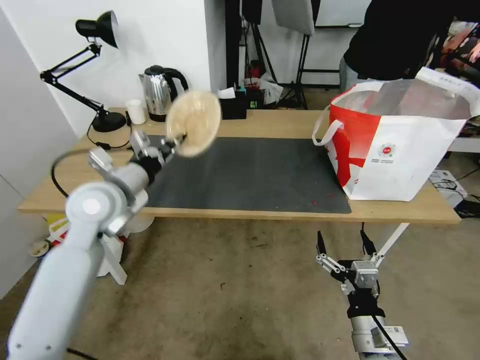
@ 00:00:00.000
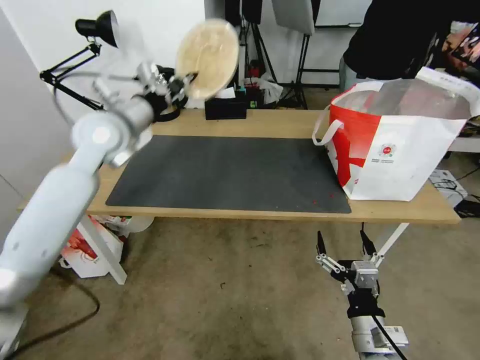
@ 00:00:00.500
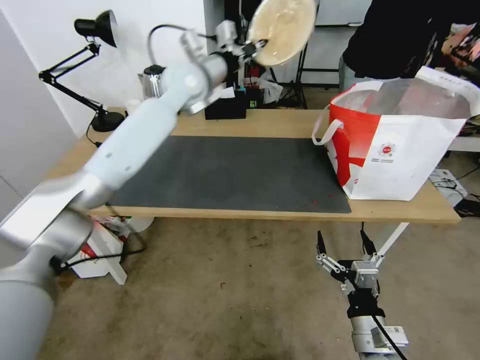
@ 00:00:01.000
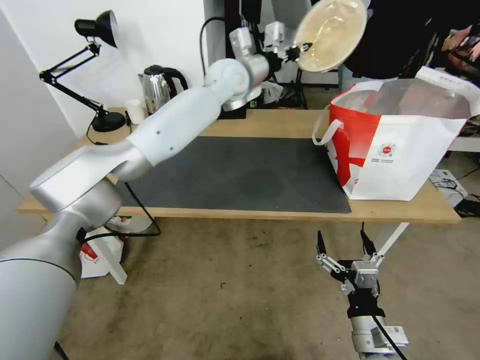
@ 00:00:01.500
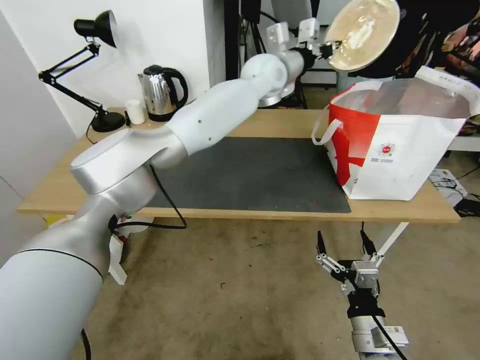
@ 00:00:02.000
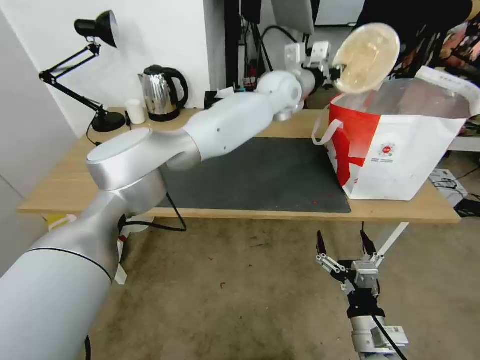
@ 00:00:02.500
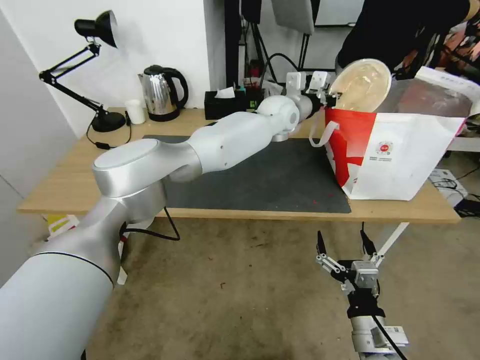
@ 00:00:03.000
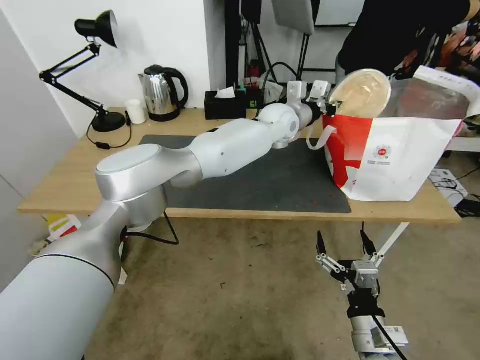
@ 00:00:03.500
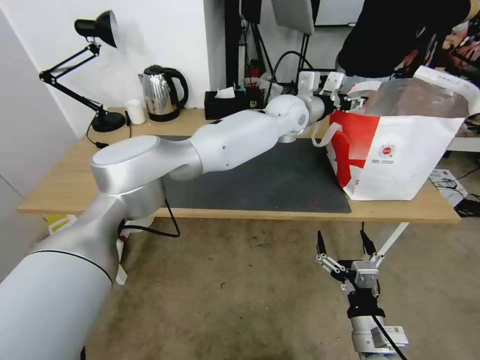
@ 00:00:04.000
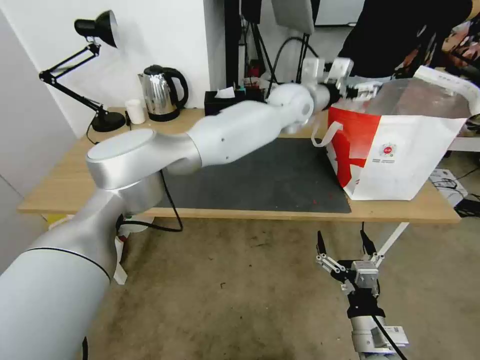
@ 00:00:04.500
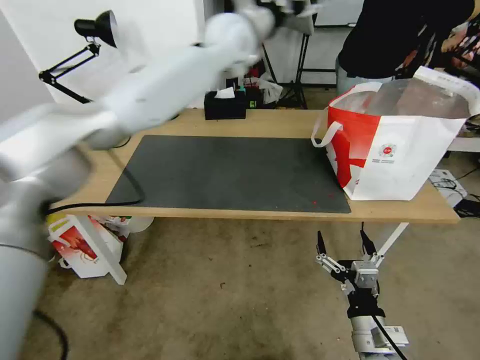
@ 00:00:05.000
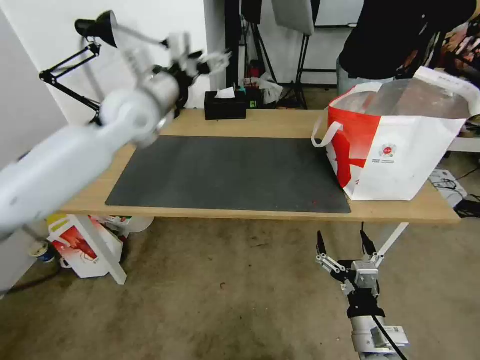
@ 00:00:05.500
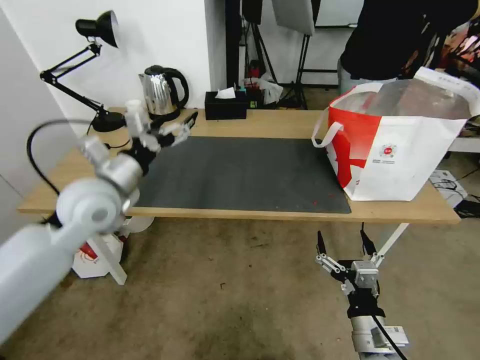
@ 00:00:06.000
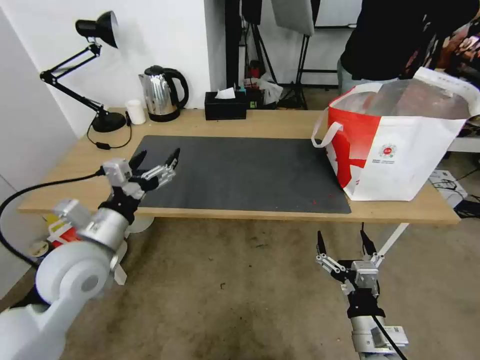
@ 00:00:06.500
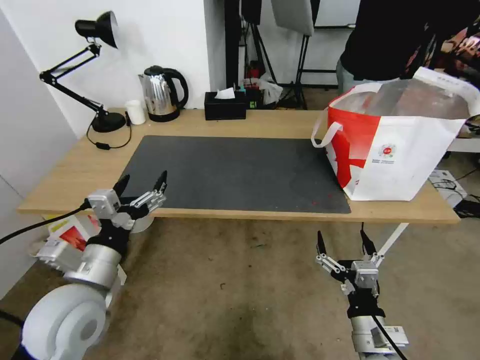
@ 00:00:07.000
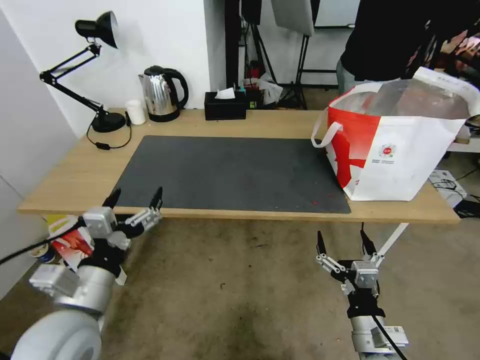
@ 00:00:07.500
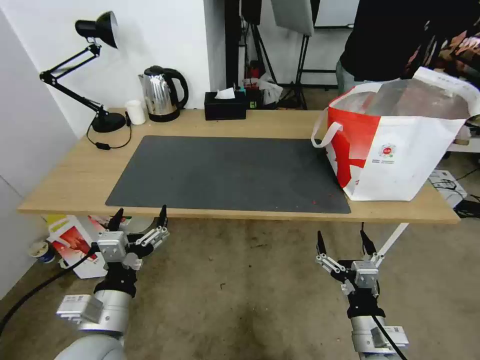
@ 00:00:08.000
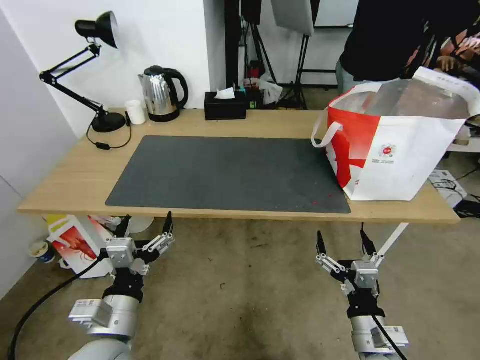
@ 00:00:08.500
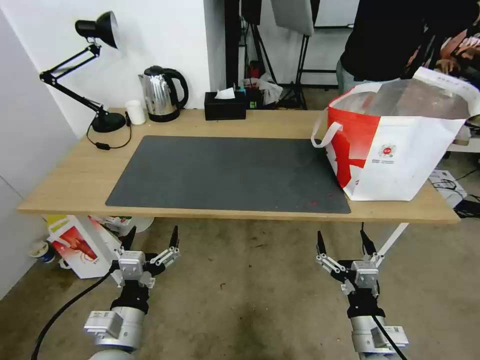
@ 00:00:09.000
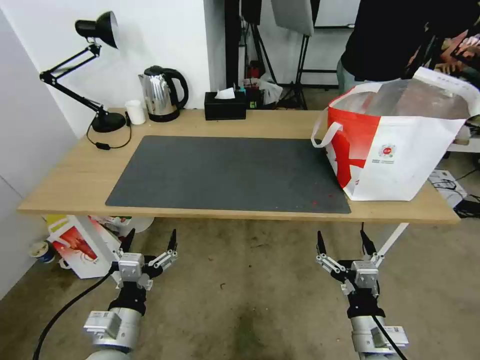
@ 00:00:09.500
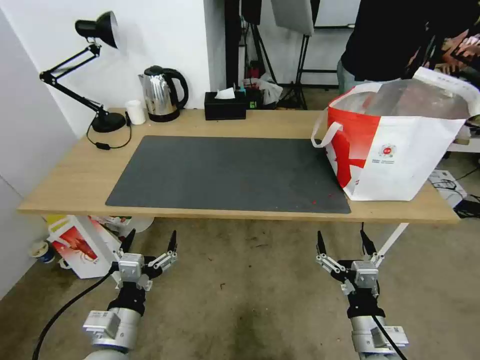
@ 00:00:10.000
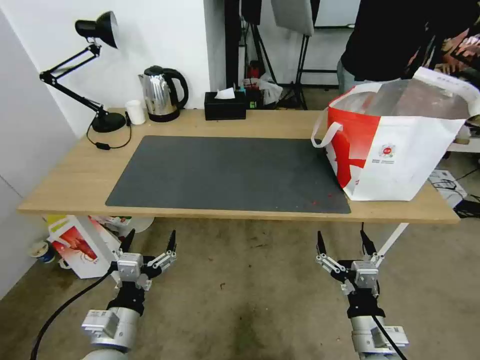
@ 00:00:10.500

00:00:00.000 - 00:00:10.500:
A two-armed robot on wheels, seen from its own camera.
Task of the whole recording: Pick up the trash from the table and place it into the takeout bag.
00:00:00.000 - 00:00:02.000: The left gripper travels to the right, forward and upward by roughly 40 cm.
00:00:02.000 - 00:00:04.000: The left gripper heads downward, covering roughly 10 cm, and opens.
00:00:04.000 - 00:00:06.500: The left gripper moves to the left and backward, roughly 50 cm, and opens its fingers.
00:00:06.500 - 00:00:08.500: The left gripper travels backward, downward and to the right by about 15 cm.
00:00:08.500 - 00:00:10.500: There are only small adjustments of the grippers.
